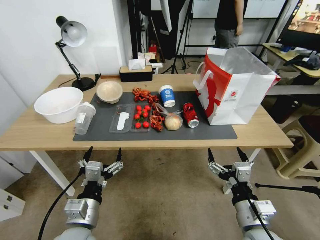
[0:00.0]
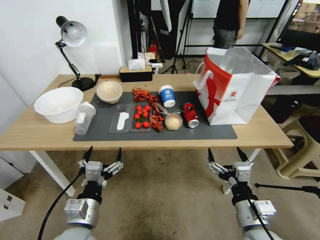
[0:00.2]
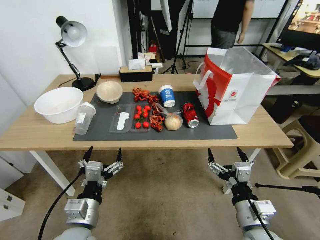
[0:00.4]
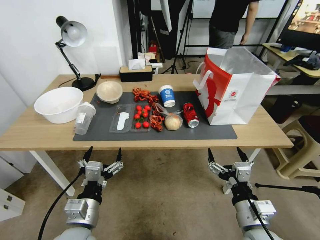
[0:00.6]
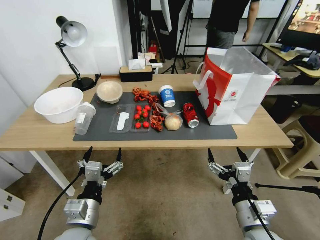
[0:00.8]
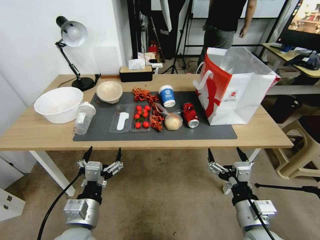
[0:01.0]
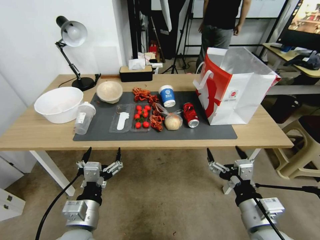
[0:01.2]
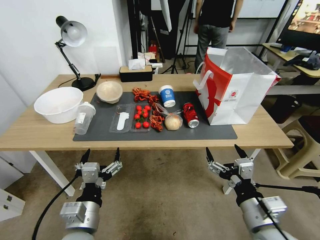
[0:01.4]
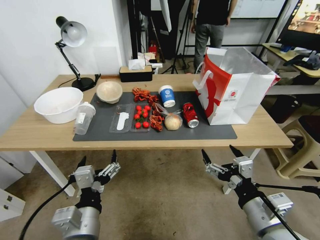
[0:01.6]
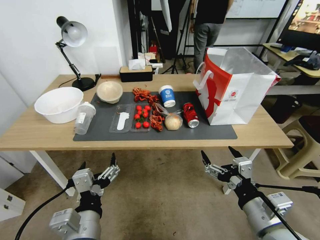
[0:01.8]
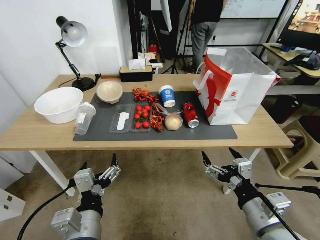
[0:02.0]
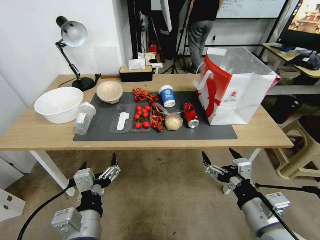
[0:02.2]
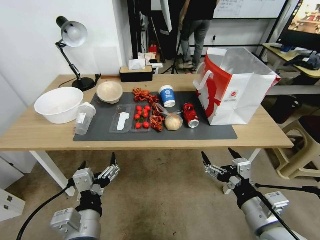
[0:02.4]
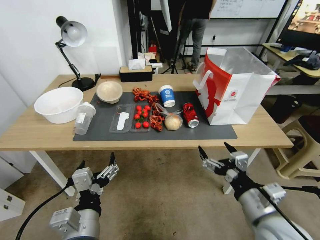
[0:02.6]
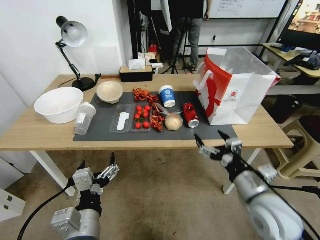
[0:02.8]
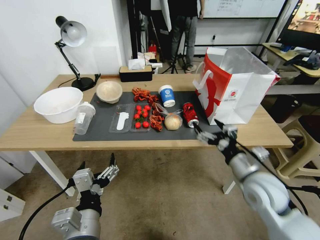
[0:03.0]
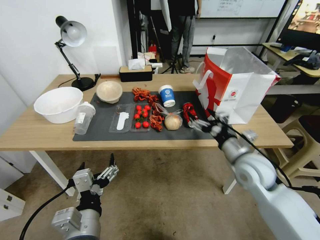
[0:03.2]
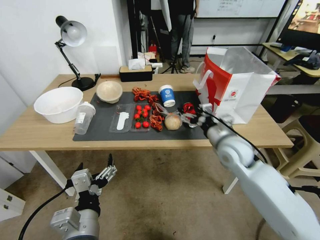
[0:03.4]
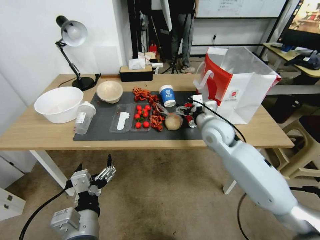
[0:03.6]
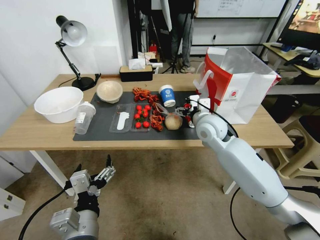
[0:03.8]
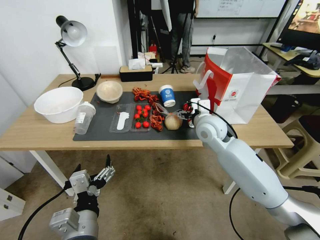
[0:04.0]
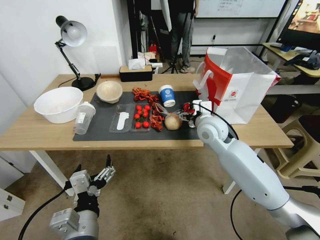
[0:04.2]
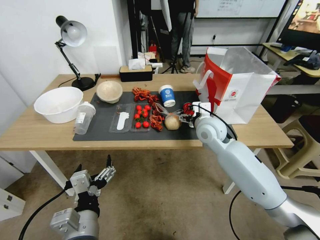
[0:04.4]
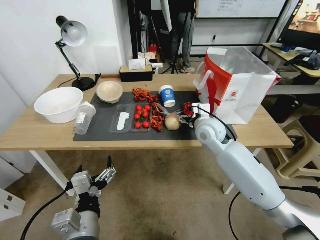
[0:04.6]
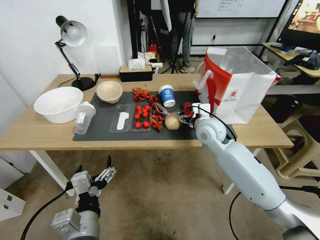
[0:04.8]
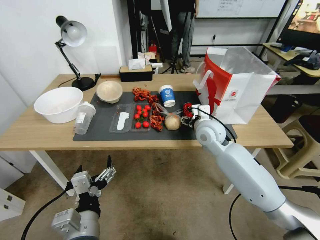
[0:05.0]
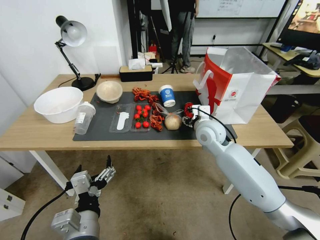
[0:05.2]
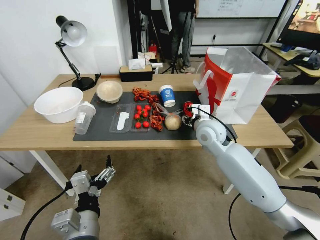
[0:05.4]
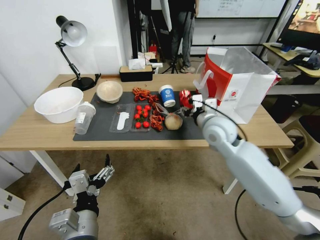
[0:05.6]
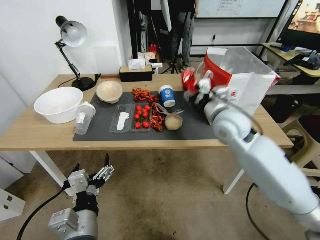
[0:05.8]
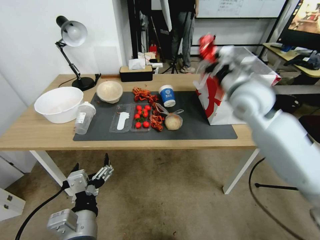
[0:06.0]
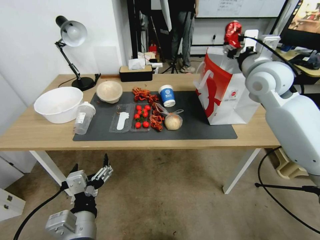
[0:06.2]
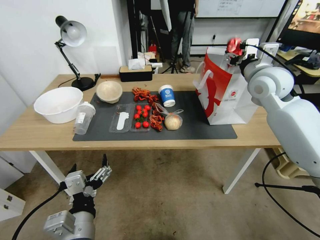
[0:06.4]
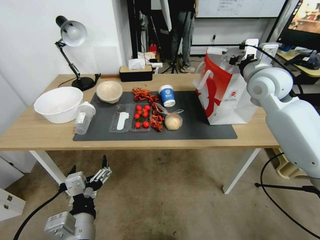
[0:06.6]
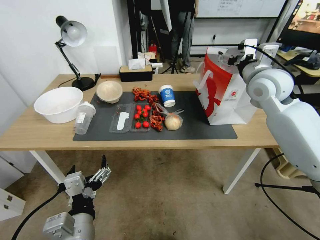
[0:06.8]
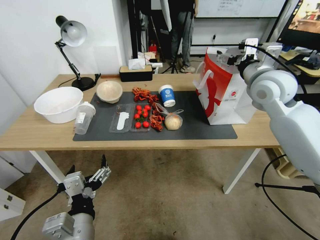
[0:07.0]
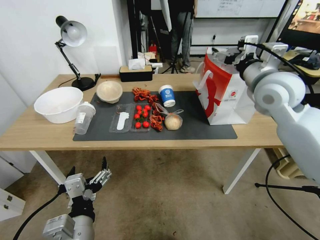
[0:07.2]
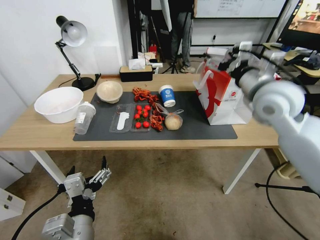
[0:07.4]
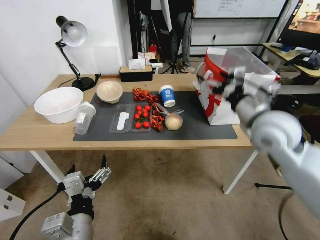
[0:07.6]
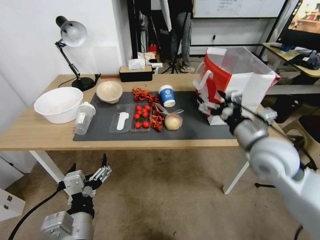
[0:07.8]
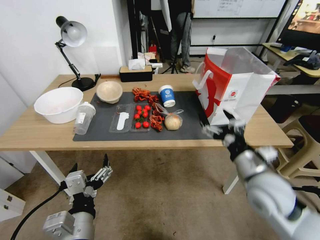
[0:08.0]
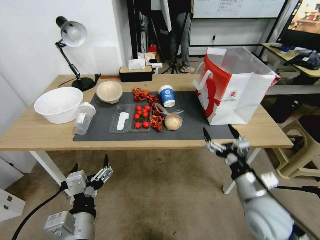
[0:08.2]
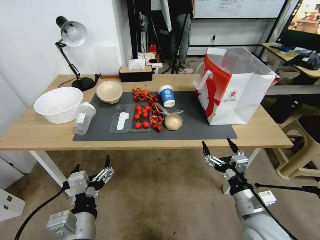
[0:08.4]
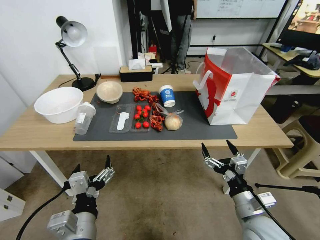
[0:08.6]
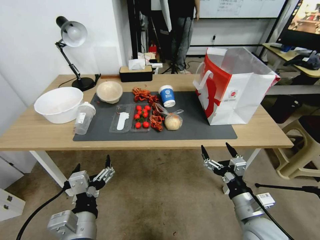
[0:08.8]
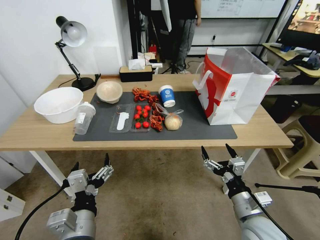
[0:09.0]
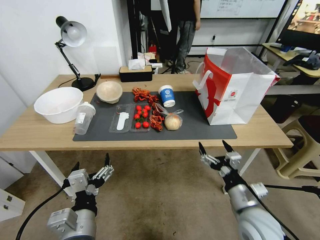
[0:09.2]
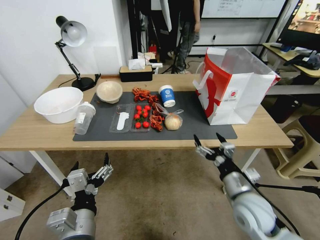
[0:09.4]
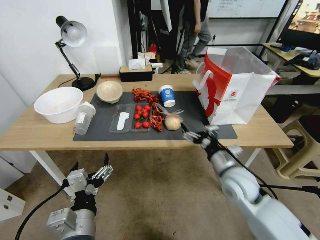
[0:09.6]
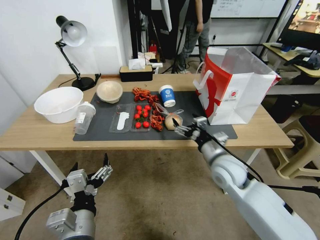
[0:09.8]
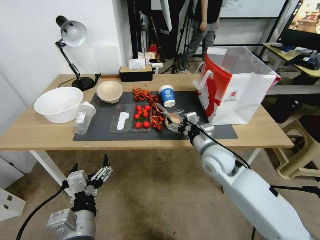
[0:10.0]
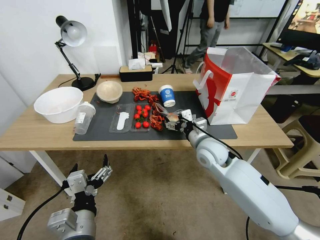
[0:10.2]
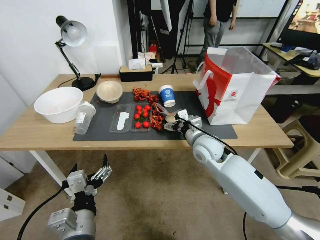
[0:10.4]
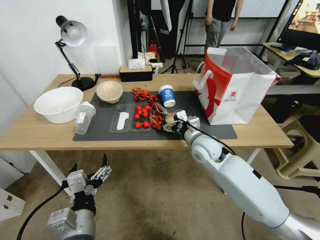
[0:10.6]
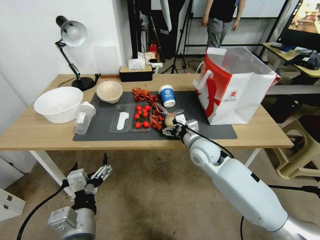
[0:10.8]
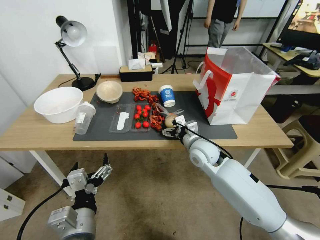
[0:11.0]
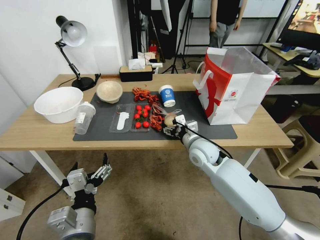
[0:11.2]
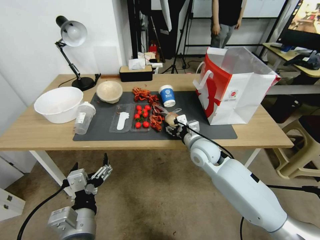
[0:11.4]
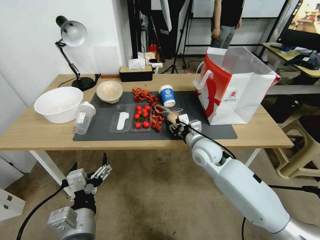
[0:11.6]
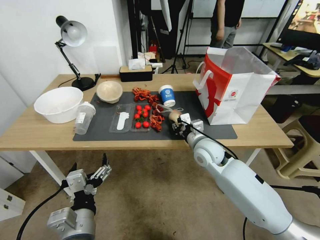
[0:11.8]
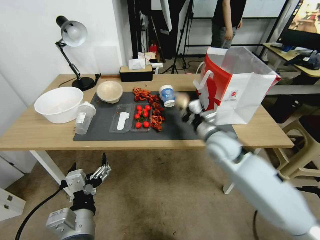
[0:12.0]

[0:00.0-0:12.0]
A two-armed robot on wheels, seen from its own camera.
0:01.6 to 0:03.0: The right gripper goes approximately 15 cm forward.
0:03.0 to 0:04.4: The right gripper heads forward and to the left, covering roughly 20 cm.
0:04.4 to 0:06.0: The right gripper travels upward and to the right by roughly 20 cm, and closes its fingers.
0:06.0 to 0:07.6: The right gripper shifts approximately 5 cm backward, and opens.
0:07.6 to 0:09.0: The right gripper moves downward and backward, roughly 30 cm.
0:09.0 to 0:10.4: The right gripper shifts about 25 cm forward and to the left.
0:10.4 to 0:12.0: The right gripper ends up about 5 cm from where it was, and closes.

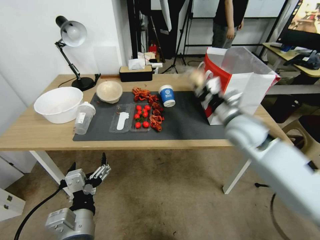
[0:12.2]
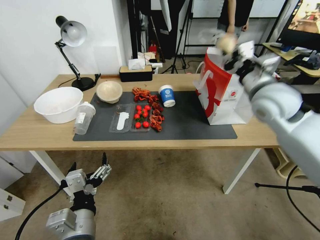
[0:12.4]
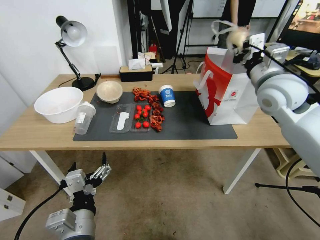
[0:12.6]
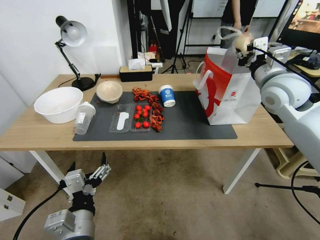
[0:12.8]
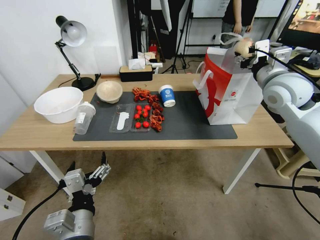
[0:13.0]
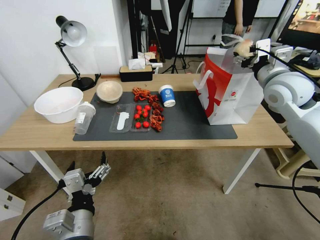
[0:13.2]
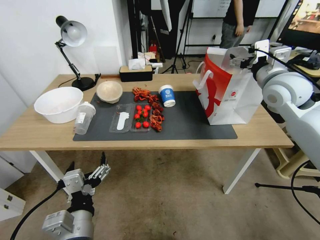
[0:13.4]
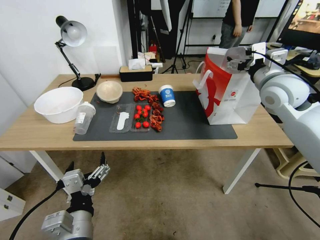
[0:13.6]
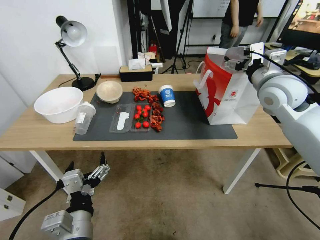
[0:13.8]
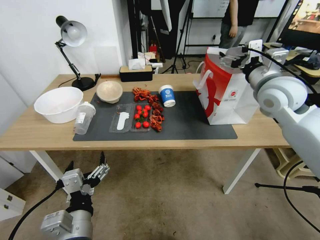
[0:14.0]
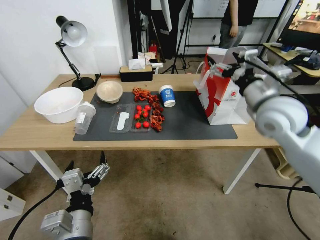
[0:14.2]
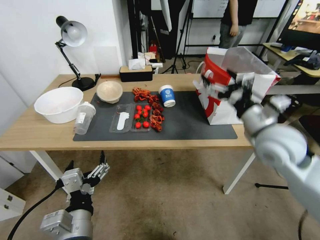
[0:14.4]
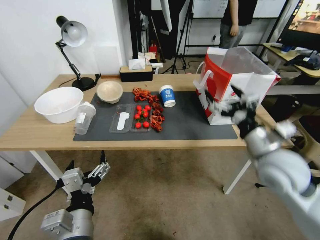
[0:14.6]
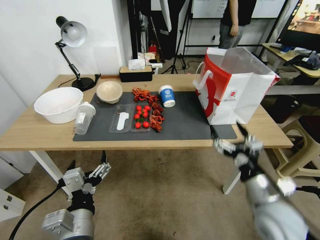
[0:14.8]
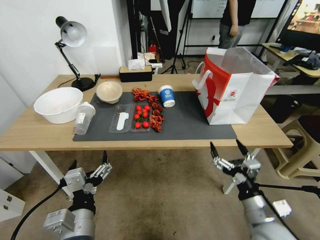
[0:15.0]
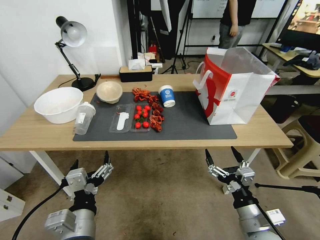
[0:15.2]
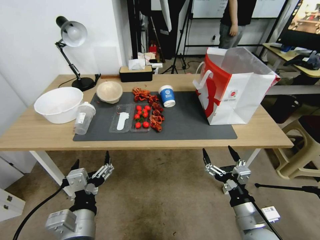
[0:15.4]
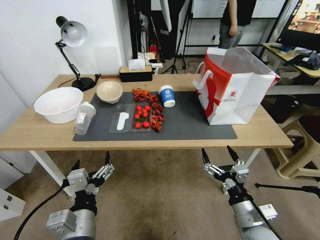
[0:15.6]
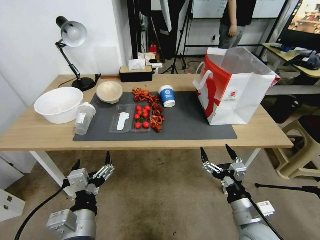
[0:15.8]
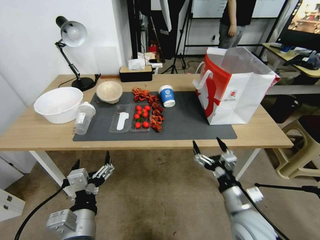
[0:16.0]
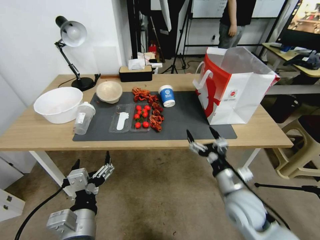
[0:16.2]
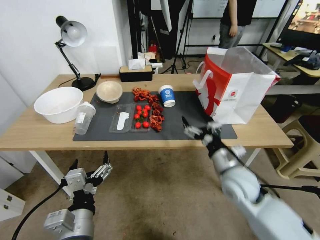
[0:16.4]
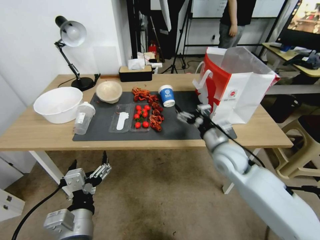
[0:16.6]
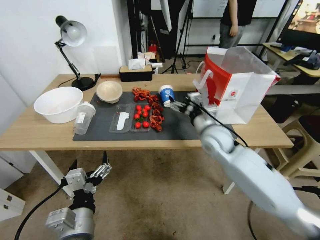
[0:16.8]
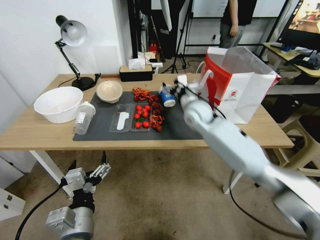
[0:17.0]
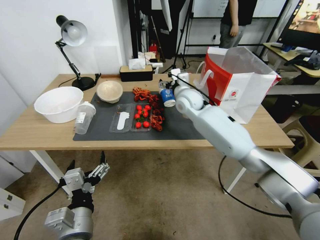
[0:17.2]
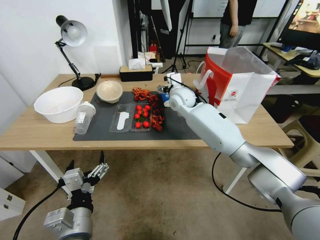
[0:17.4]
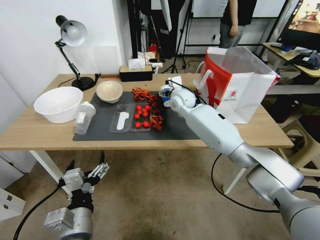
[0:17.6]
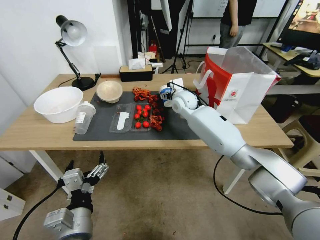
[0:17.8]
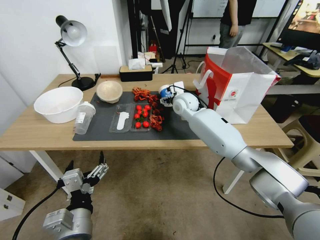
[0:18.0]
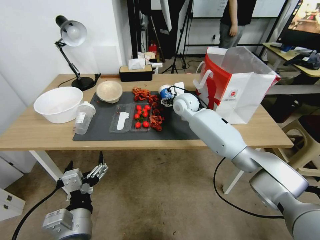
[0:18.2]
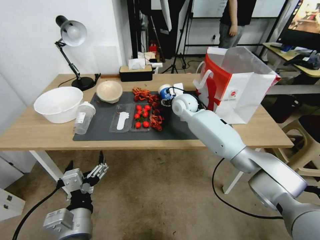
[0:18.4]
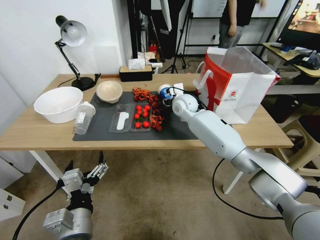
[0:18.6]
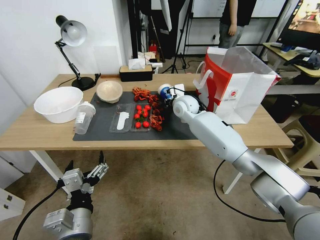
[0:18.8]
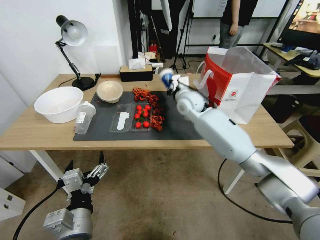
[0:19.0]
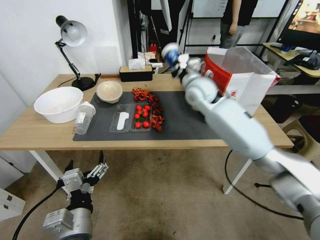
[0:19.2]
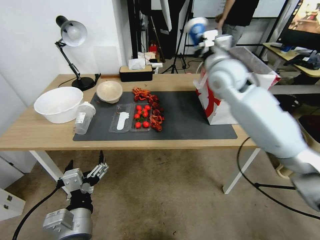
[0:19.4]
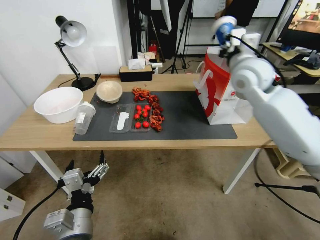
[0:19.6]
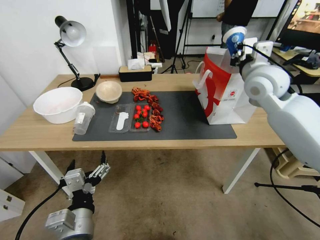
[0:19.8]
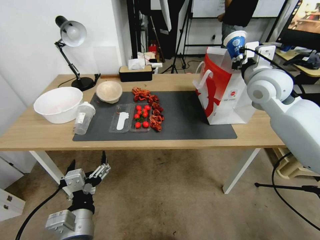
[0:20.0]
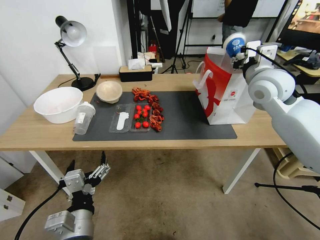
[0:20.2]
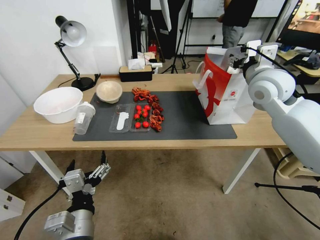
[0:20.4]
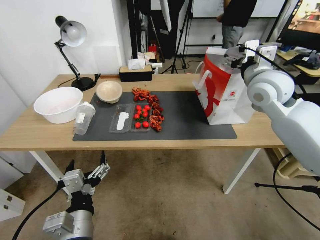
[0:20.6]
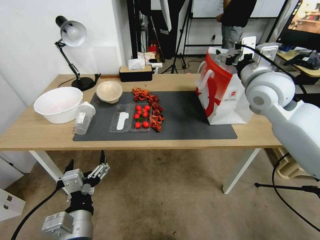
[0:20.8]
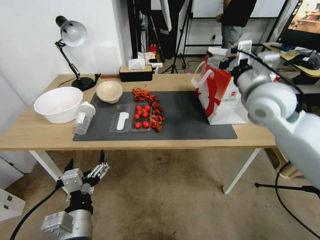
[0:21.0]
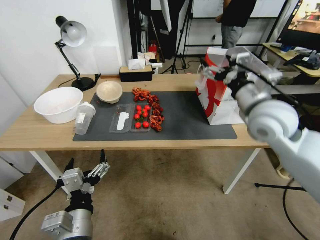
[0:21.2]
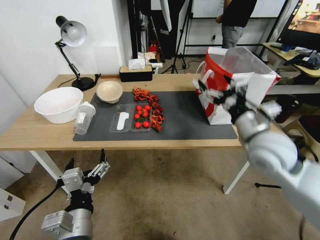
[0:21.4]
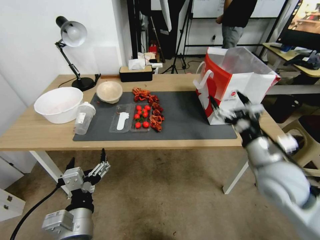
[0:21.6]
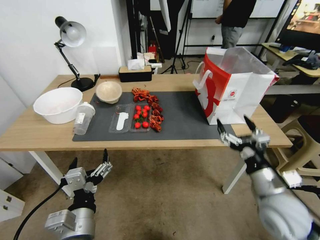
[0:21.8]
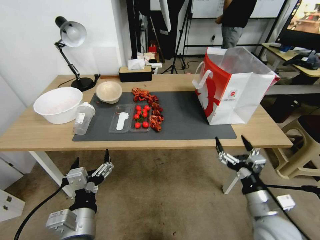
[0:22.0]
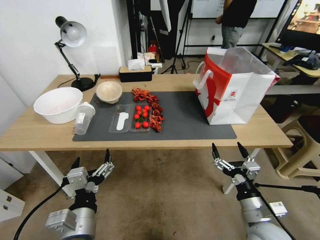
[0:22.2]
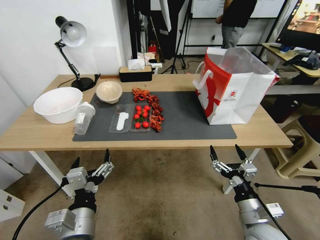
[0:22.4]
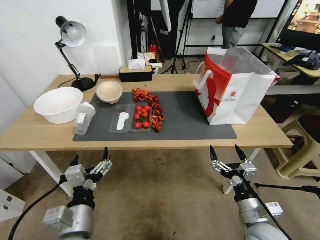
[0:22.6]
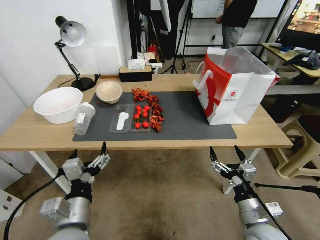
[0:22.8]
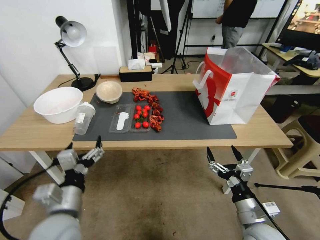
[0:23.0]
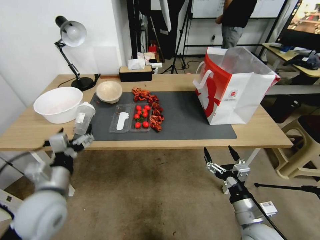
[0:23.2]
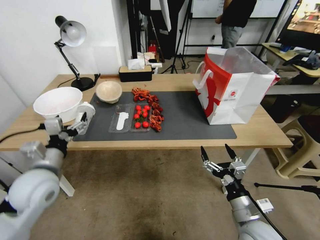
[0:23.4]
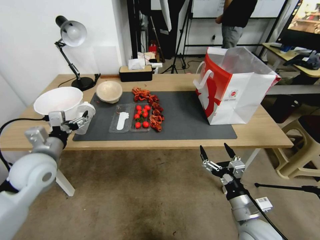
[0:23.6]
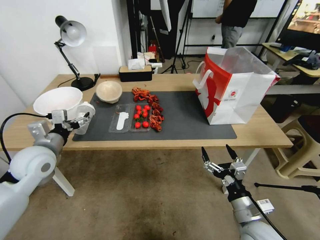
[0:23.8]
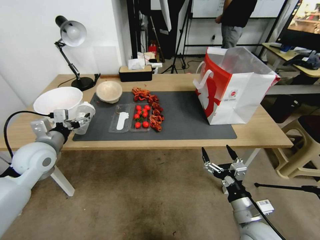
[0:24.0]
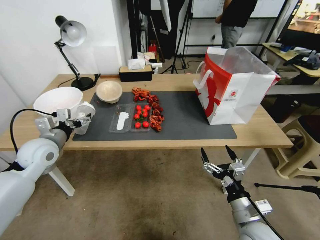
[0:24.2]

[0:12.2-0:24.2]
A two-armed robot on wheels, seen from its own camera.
0:12.2 to 0:13.8: The right gripper moves upward, to the right and forward, approximately 15 cm, and opens its fingers.
0:13.8 to 0:15.2: The right gripper is displaced backward and downward by roughly 40 cm.
0:15.2 to 0:16.6: The right gripper goes roughly 20 cm forward.
0:16.6 to 0:18.2: The right gripper goes roughly 25 cm forward and to the left.
0:18.2 to 0:19.8: The right gripper moves to the right, upward and backward, some 25 cm, and closes its fingers.
0:19.8 to 0:21.2: The right gripper goes about 5 cm backward, and opens up.
0:21.2 to 0:22.6: The right gripper travels downward and backward by roughly 35 cm.
0:22.6 to 0:24.2: The left gripper shifts about 30 cm forward and to the left.
